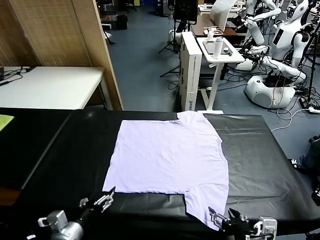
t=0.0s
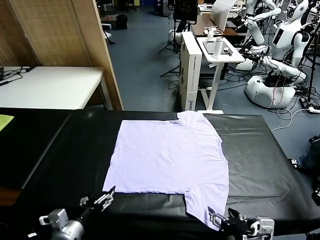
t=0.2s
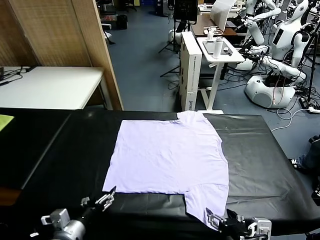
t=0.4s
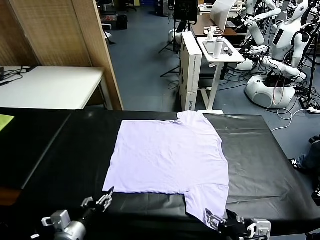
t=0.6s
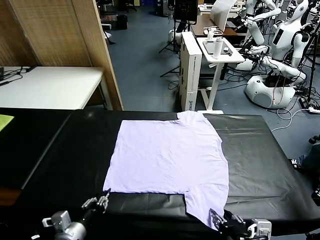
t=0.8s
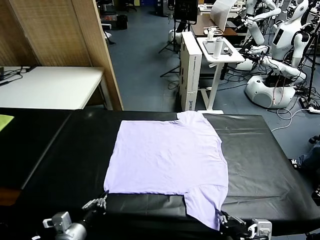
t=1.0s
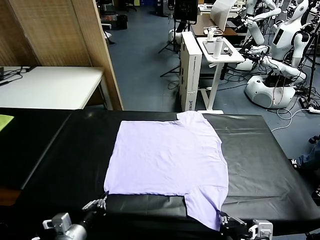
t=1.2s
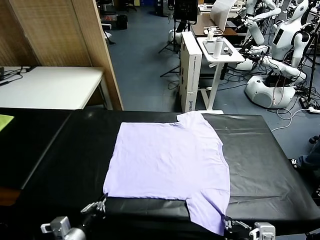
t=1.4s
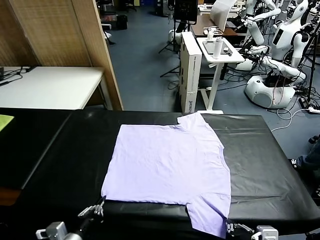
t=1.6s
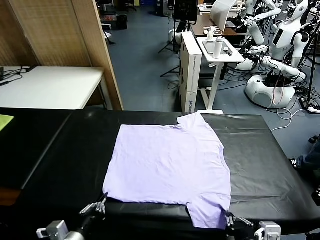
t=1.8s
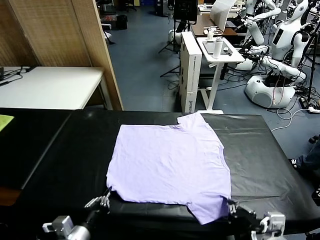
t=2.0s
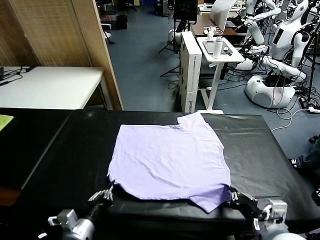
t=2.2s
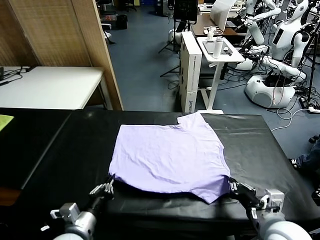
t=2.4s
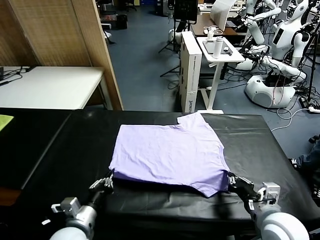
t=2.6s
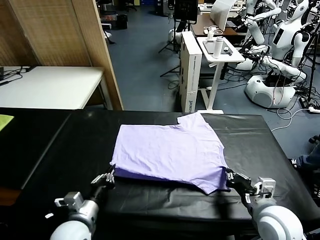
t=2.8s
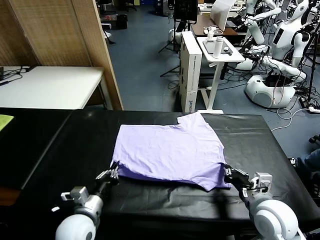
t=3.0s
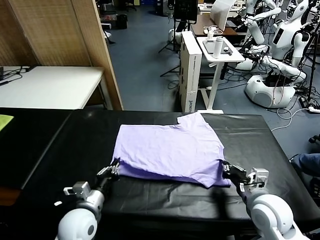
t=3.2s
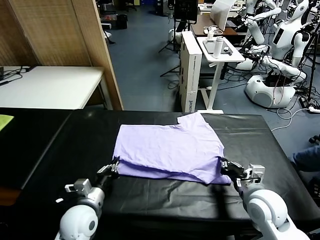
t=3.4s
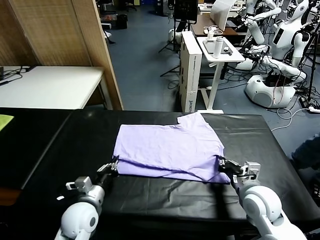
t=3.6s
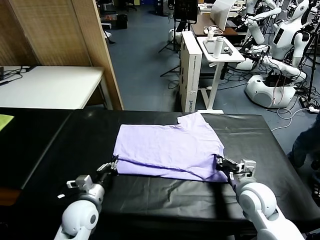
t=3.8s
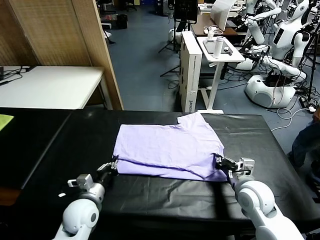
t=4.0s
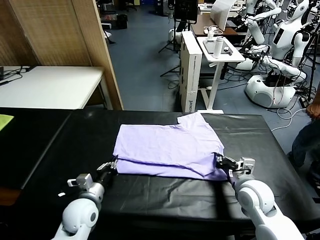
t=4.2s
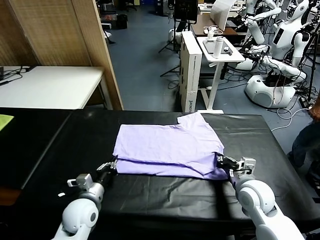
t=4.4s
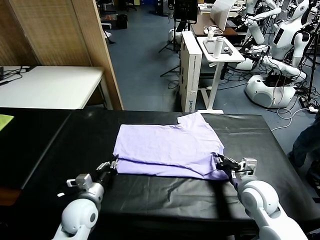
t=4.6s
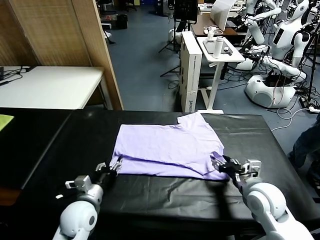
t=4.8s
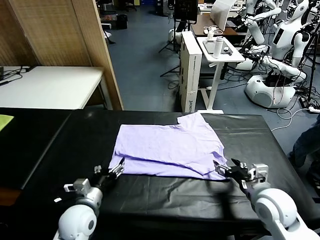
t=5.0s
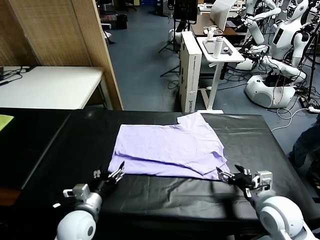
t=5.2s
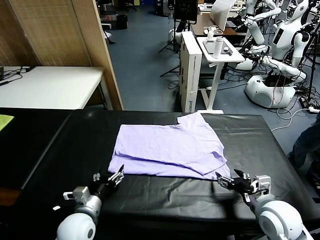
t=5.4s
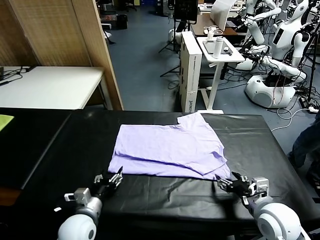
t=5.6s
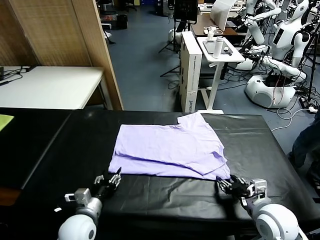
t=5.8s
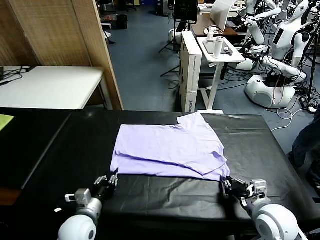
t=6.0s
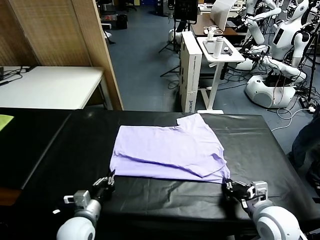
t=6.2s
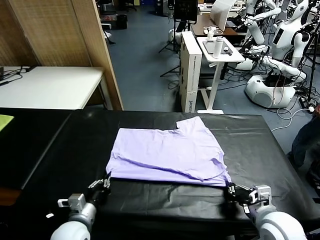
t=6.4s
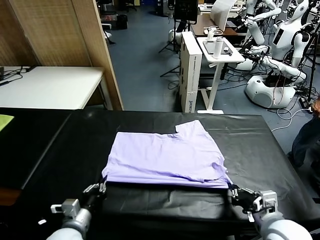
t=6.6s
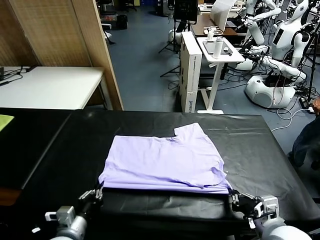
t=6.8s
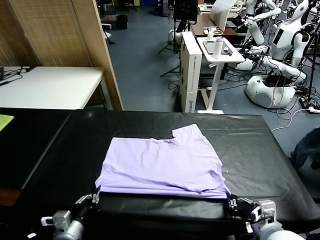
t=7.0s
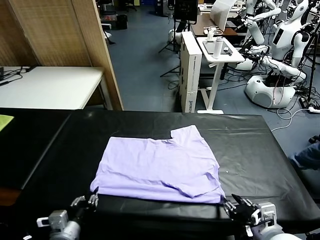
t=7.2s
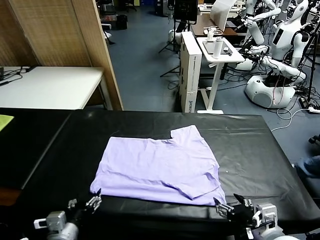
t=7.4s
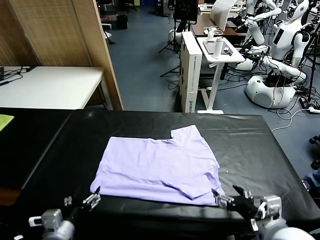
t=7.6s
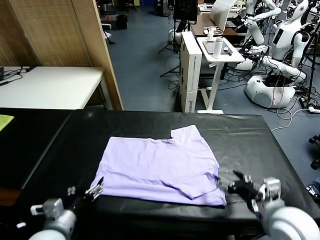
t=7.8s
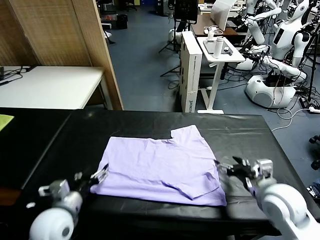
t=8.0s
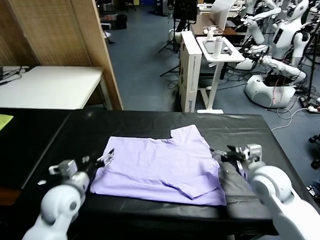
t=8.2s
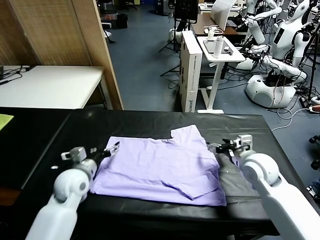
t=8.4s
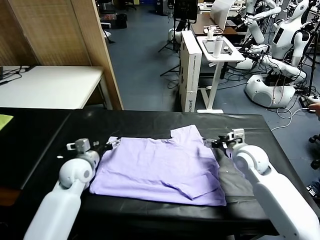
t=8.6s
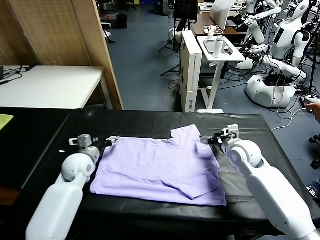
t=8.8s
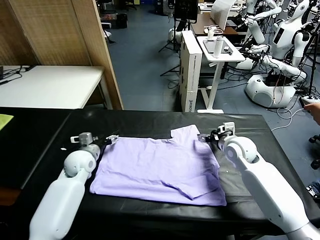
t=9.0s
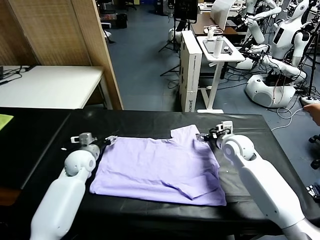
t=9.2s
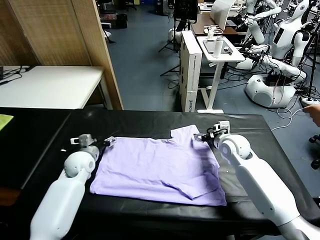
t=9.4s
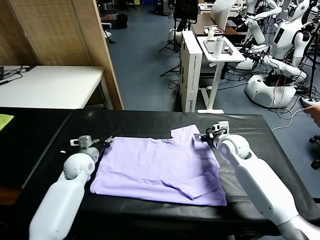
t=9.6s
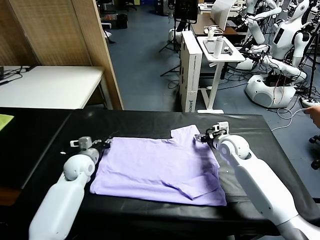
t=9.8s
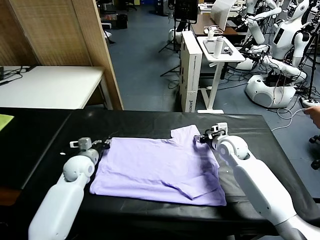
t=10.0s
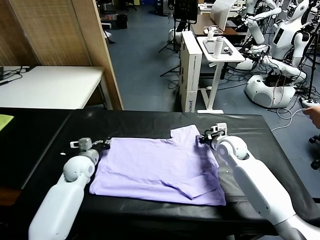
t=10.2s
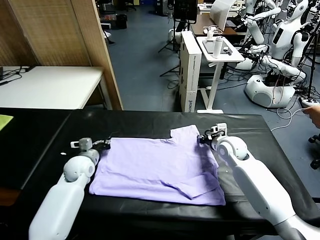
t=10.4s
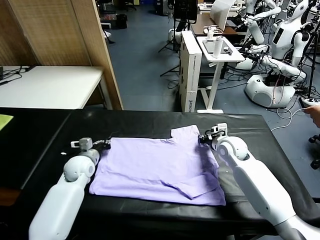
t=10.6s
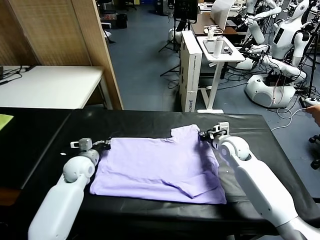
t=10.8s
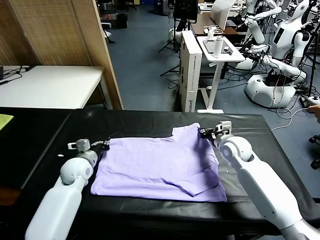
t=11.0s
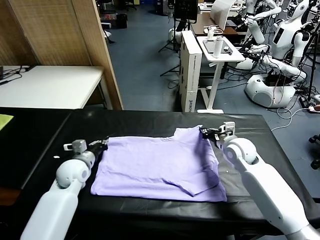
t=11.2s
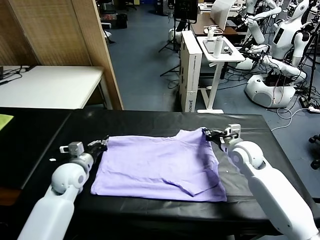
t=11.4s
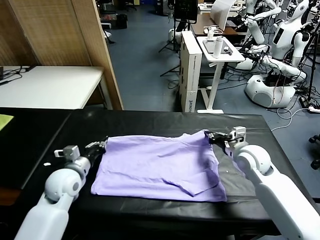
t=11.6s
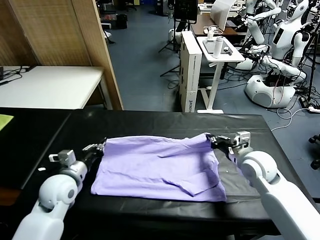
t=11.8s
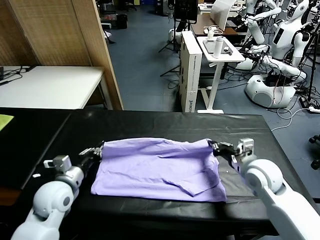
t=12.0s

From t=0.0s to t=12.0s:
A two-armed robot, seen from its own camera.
Task of the whole recording: fold and organize the clothes.
Step, from t=0.0s to t=1.4s: use both grippers simultaneously to clamp the lower edge of the clothing fabric.
Step, from t=1.6s to t=4.8s: use both grippers to drag the lower edge of the fabric forward and fold it over the upper edge.
Step, from t=5.2s to t=7.2s: Drag the clothes downward with both gripper.
Step, from t=7.4s to t=10.6s: use both grippers simultaneously to clamp the upper edge of the clothing fabric.
From t=1.6s to t=3.0s: The grippers both shift forward by about 15 cm.
From t=3.0s to t=4.4s: The right gripper opens up.
From t=4.4s to t=6.0s: The right gripper shifts about 10 cm backward, and closes, while the left gripper opens, then closes again.
From t=6.0s to t=7.6s: The left gripper is displaced upward and backward by approximately 10 cm, and opens up, while the right gripper shifts some 5 cm upward, and opens.
From t=7.6s to t=9.0s: Both grippers move forward, about 25 cm.
From t=9.0s to t=10.4s: The left gripper closes its fingers. The right gripper closes up.
From t=10.4s to t=12.0s: The left gripper shifts approximately 15 cm backward and upward. The right gripper travels backward by about 15 cm.

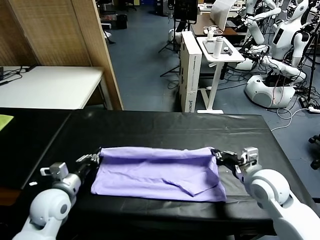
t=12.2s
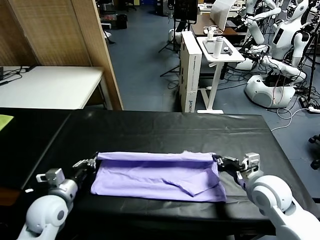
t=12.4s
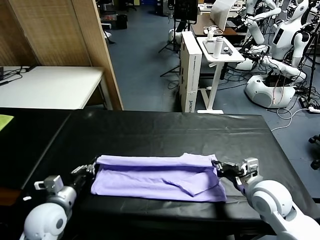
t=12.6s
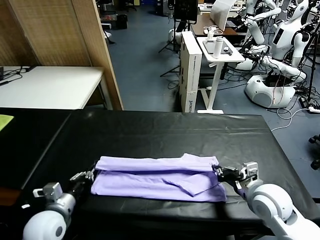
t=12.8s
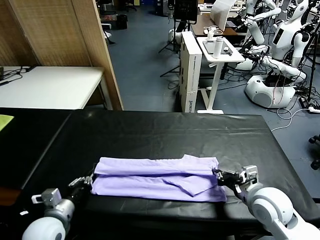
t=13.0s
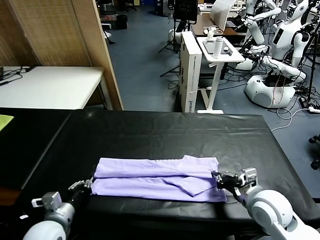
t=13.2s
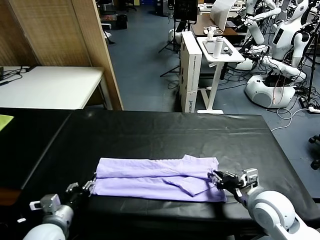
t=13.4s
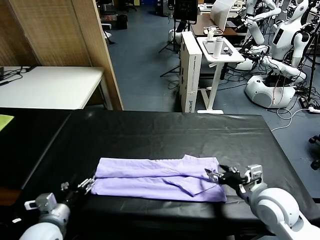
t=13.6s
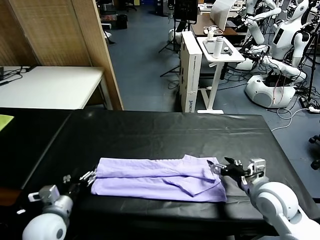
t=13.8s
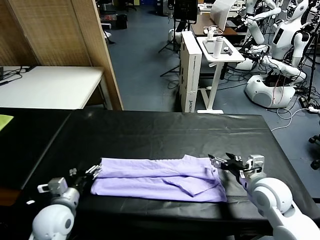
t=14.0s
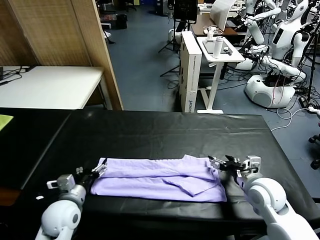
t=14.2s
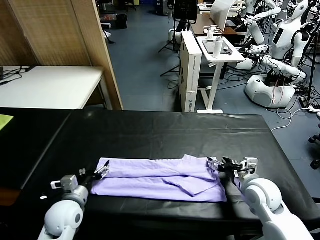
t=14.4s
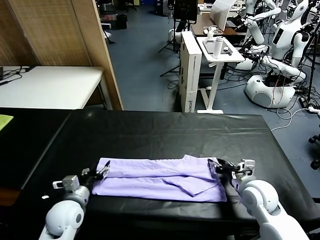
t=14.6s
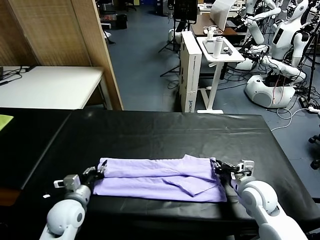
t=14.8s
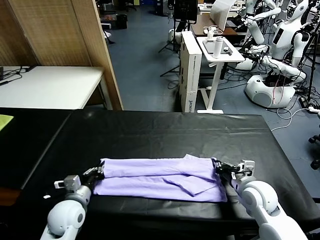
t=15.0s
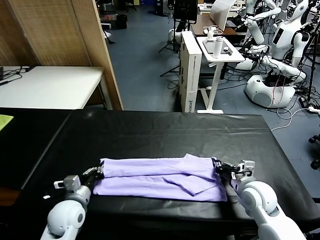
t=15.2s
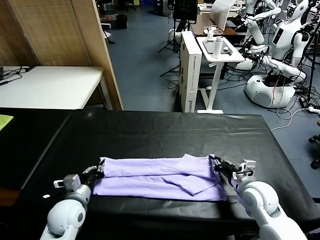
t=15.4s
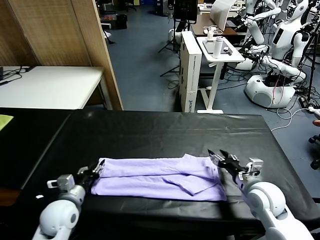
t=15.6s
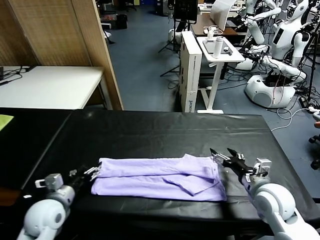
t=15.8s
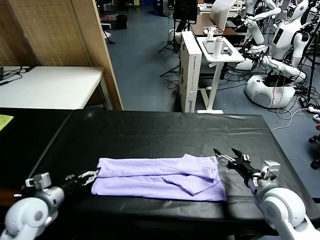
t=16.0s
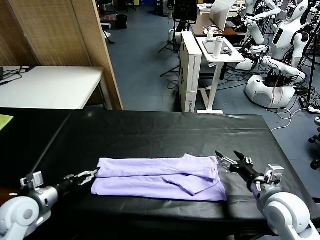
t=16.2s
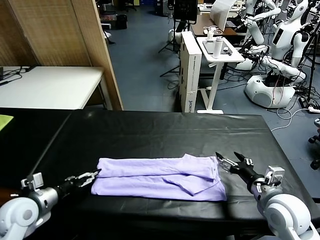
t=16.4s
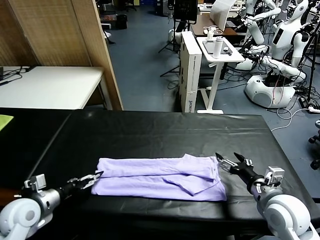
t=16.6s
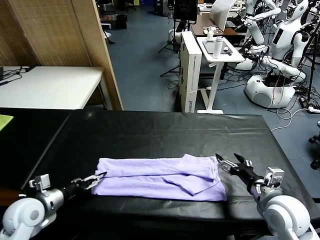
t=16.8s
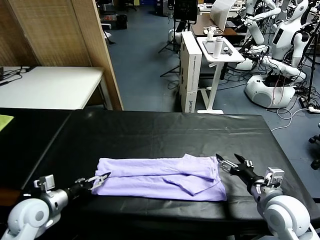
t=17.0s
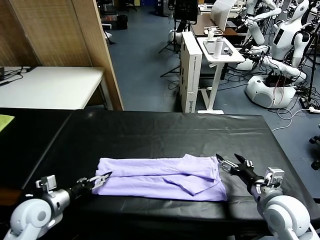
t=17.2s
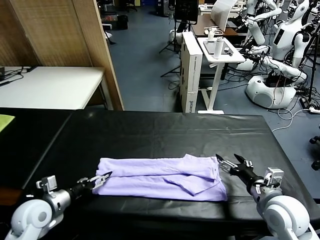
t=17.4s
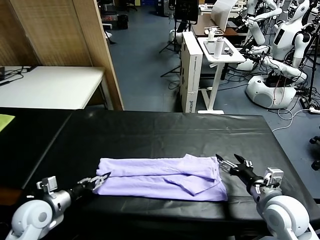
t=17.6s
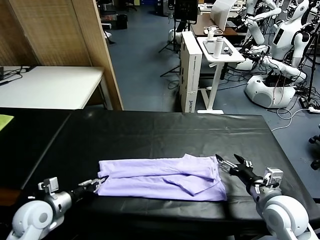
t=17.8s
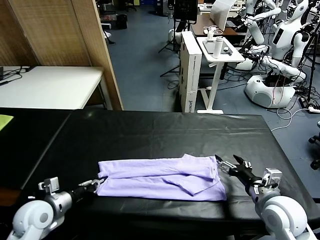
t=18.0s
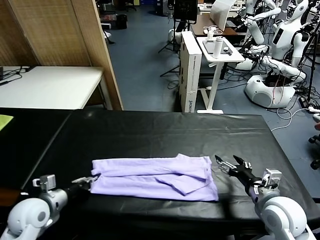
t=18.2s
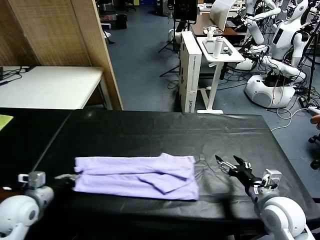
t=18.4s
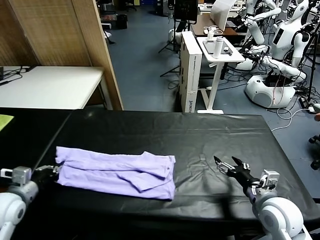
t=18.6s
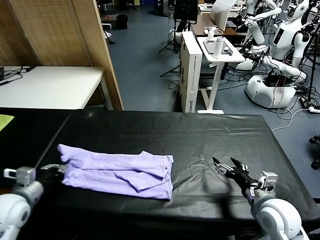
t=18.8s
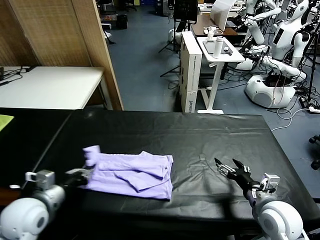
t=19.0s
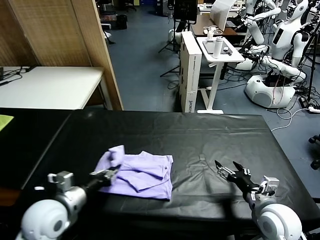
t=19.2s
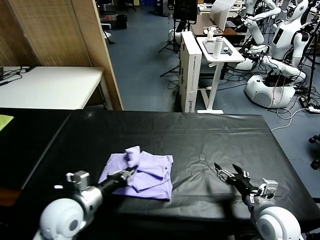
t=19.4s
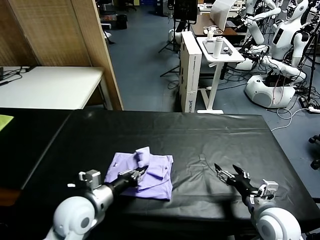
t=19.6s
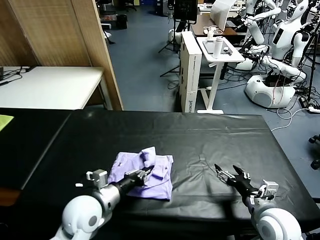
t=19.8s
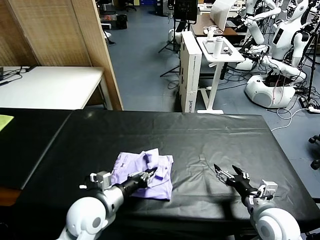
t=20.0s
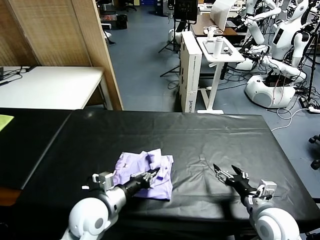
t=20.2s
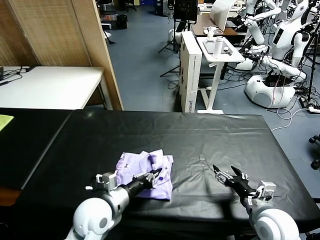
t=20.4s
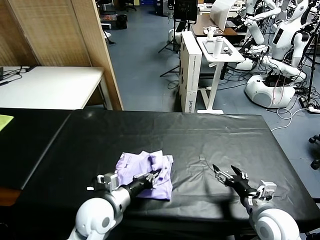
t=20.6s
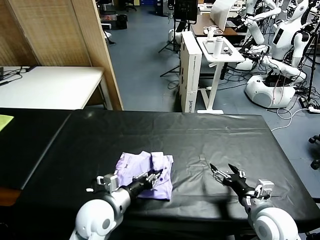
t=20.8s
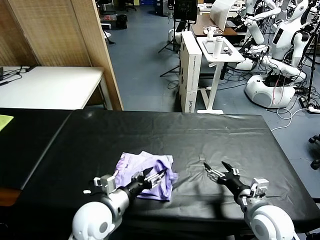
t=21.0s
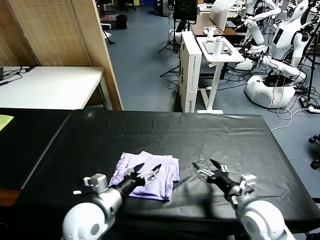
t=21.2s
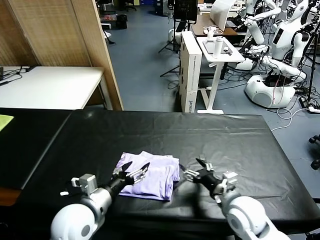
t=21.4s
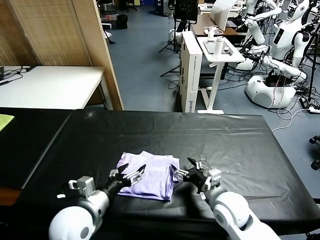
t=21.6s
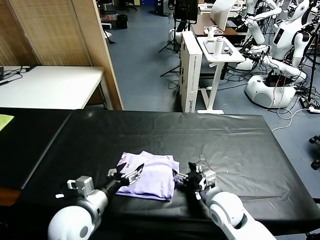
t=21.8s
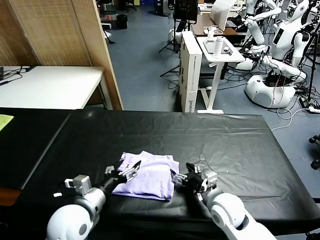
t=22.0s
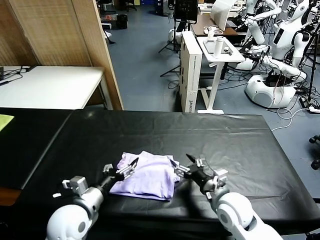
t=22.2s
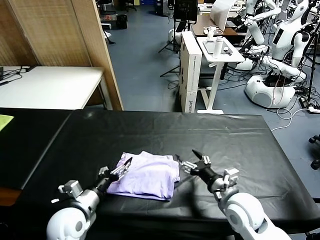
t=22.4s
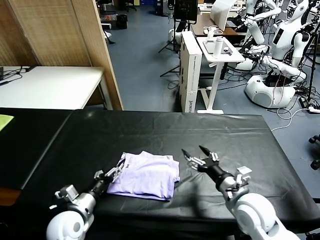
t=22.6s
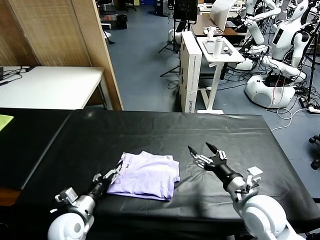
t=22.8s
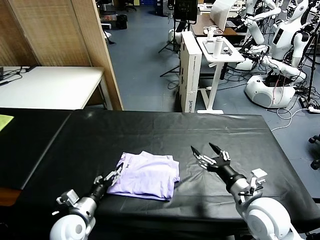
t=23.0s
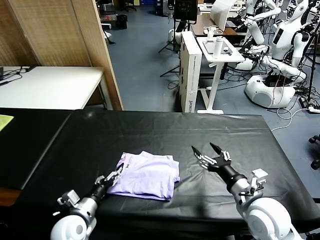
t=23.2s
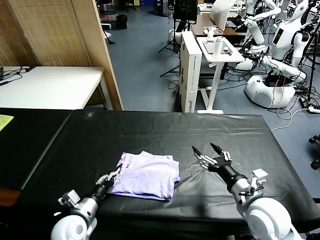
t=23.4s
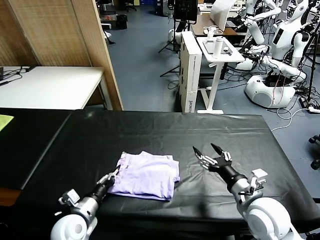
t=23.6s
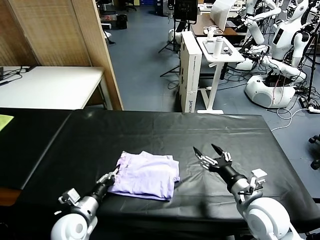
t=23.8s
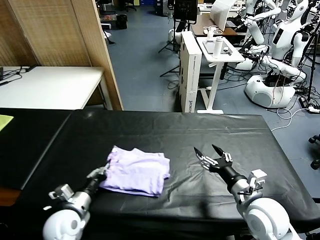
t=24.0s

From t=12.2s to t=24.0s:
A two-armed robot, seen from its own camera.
Task of the whole recording: fold and organize the clothes.
Step, from t=13.6s to t=18.0s: use the left gripper to clamp the left edge of the fabric.
Step, from t=18.2s to t=21.2s: use the left gripper to drag the left edge of the fabric to the left and folds it over the right edge.
From t=12.2s to t=13.6s: The left gripper heads backward, covering about 5 cm, and opens its fingers. The right gripper opens.
From t=13.6s to t=15.2s: The right gripper goes about 5 cm downward, and closes up. Meanwhile the left gripper moves forward, roughly 5 cm, and closes.
From t=15.2s to t=16.6s: The right gripper travels backward and upward by some 10 cm, and opens its fingers. Meanwhile the left gripper shifts some 10 cm to the left and upward, and opens up.
From t=16.6s to t=18.2s: The left gripper closes.
From t=18.2s to t=19.6s: The left gripper is displaced to the right by about 15 cm.
From t=19.6s to t=21.0s: The left gripper opens up.
From t=21.0s to t=22.6s: The left gripper goes about 10 cm to the left and downward.
From t=22.6s to t=24.0s: The left gripper closes.
